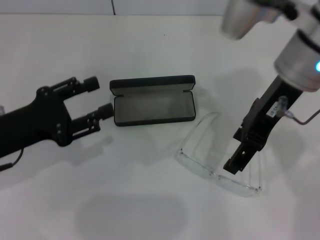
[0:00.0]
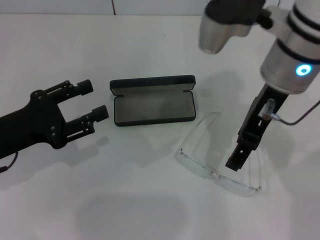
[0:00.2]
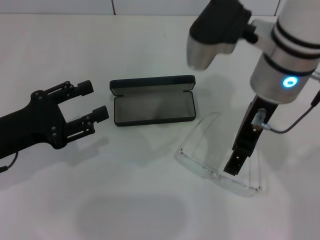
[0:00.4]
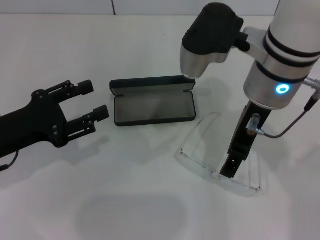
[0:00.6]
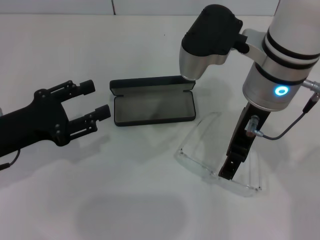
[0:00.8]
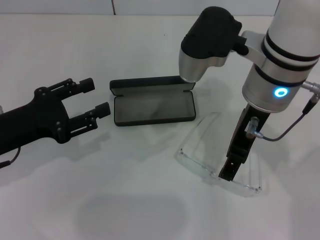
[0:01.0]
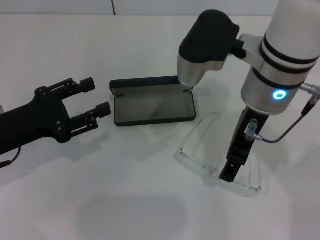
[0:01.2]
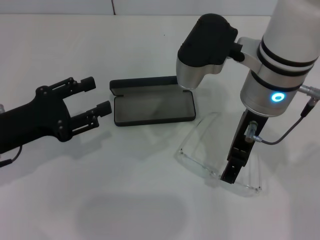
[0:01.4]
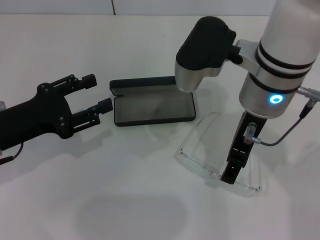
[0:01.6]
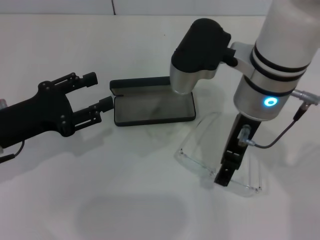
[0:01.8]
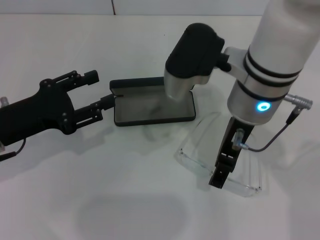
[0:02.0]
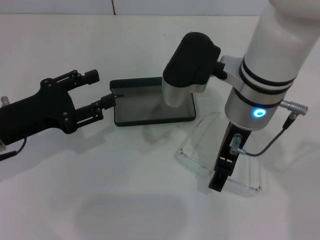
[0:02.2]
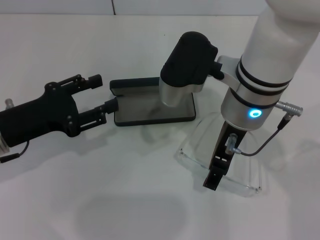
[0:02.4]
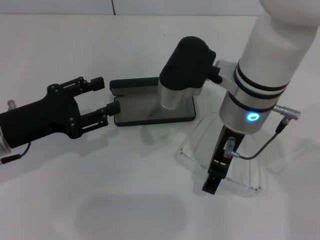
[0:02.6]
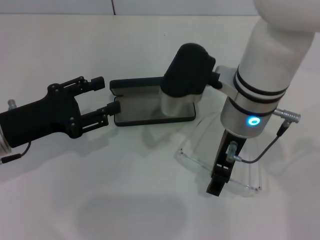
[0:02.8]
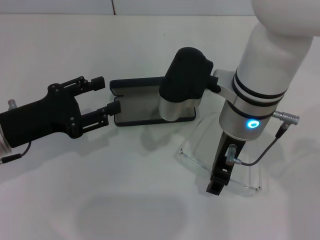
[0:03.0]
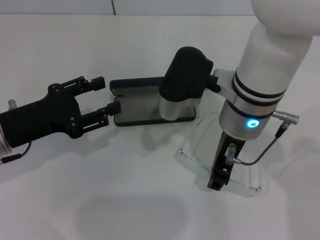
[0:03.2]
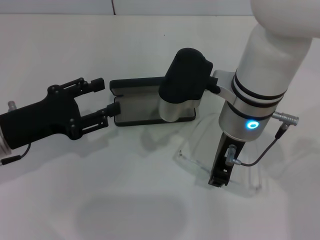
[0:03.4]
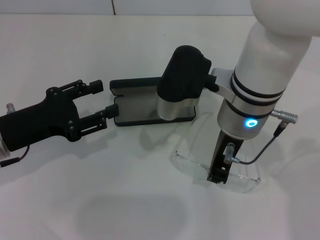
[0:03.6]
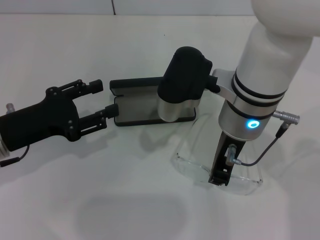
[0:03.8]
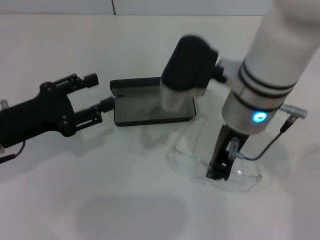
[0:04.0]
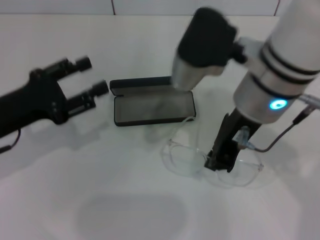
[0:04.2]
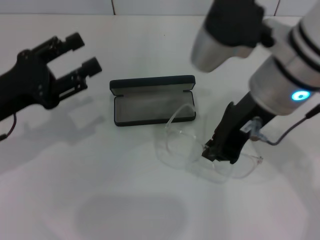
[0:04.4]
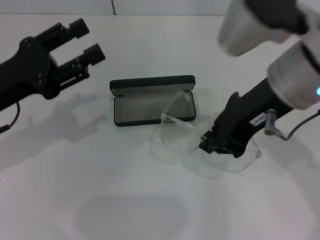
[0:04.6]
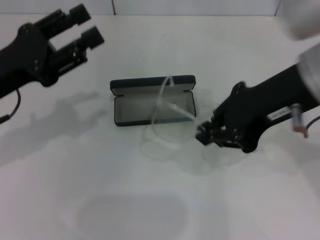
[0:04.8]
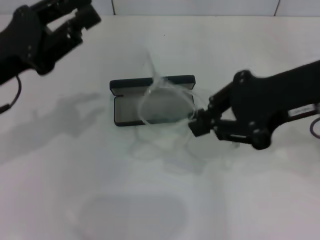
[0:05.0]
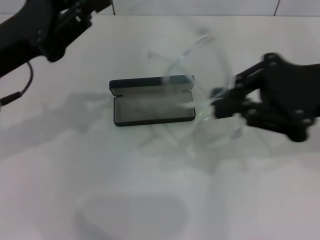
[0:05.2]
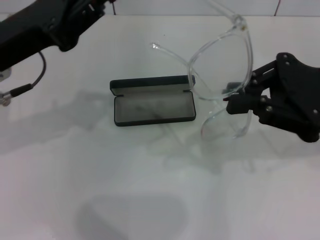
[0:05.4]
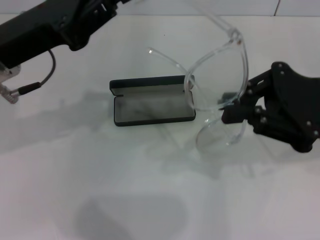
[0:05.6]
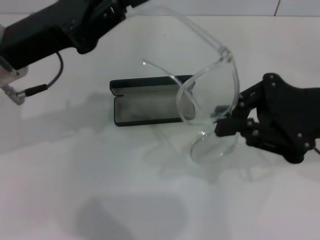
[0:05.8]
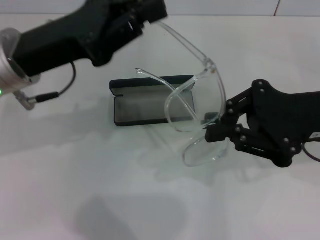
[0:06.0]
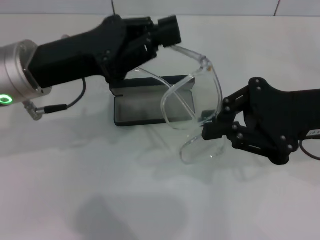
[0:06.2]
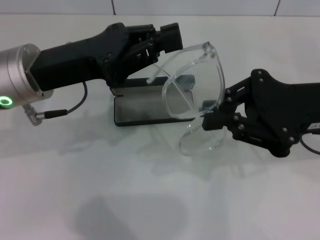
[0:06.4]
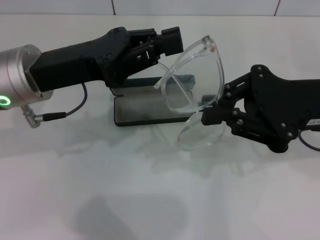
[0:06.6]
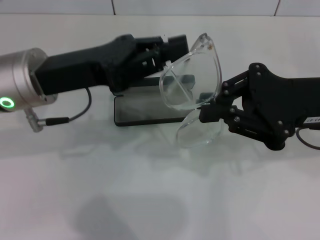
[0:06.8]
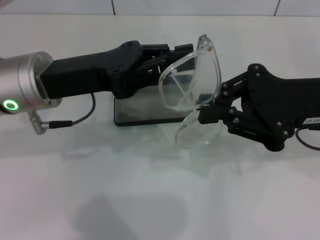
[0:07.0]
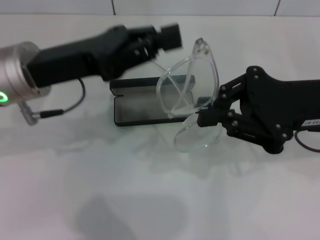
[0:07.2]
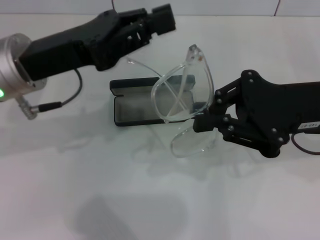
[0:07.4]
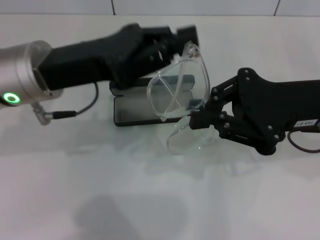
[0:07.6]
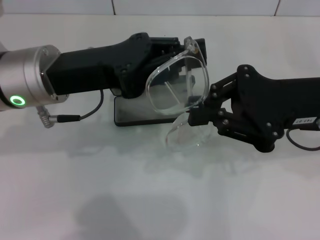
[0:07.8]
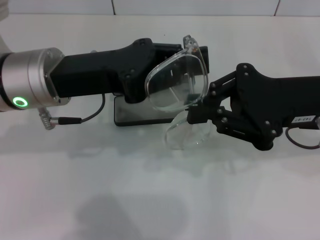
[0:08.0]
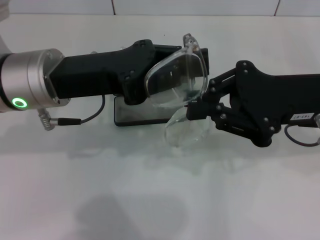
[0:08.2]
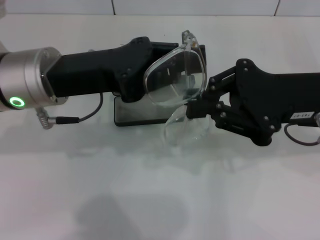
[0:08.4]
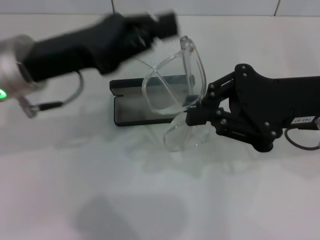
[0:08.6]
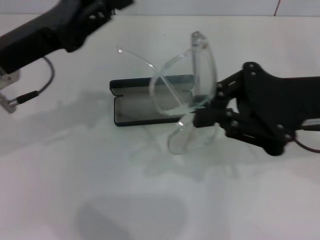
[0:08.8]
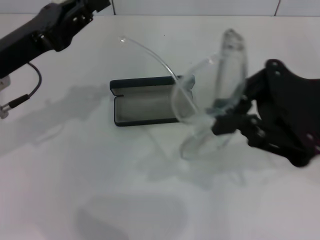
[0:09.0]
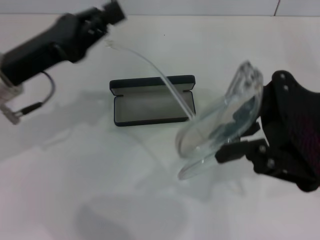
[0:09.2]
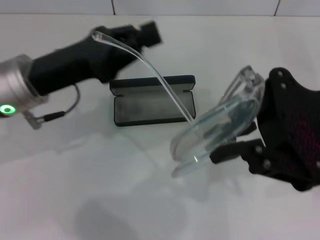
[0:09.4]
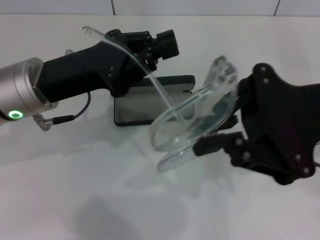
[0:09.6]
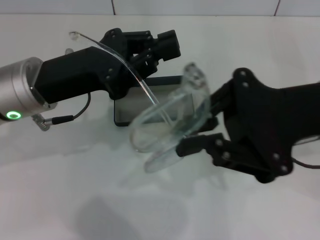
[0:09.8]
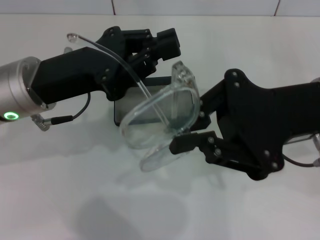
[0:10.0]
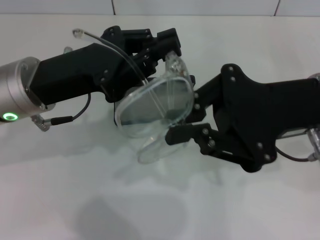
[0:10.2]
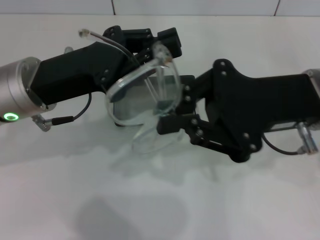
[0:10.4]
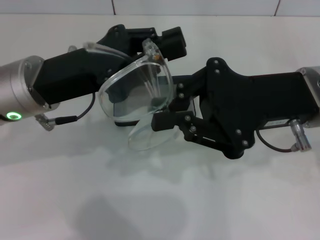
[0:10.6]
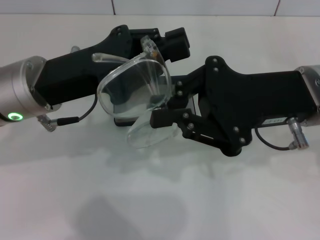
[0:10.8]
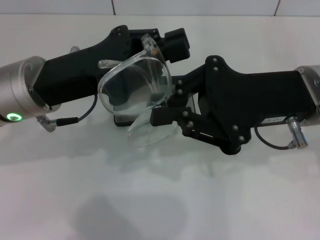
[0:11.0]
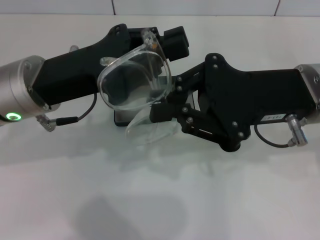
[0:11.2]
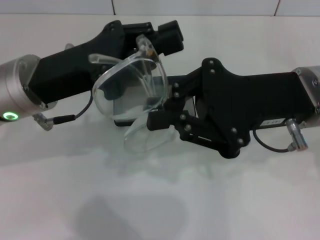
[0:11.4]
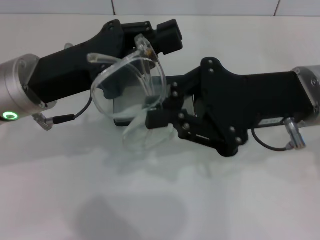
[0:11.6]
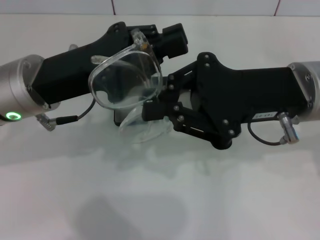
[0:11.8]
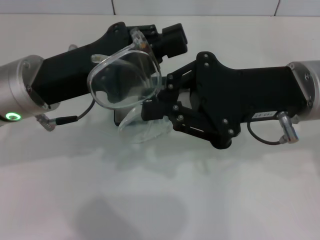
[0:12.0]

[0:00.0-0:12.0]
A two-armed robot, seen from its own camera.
Step, 0:00.0 to 0:03.2: Grab the eyeglass frame with your right hand.
Step, 0:03.6 to 0:11.0: Fold the frame with your left hand.
0:00.0 to 0:01.6: The right gripper ends up roughly 5 cm from where it was.
0:01.6 to 0:03.0: The grippers move only a little.
0:03.0 to 0:04.4: The right gripper heads upward, covering roughly 5 cm, and closes its fingers.
0:04.4 to 0:06.0: The left gripper moves to the right and upward, about 10 cm, and closes up. The right gripper is displaced to the right and downward by some 15 cm.
0:07.6 to 0:09.0: The left gripper heads to the left, covering approximately 5 cm.
0:09.0 to 0:10.4: The left gripper shifts approximately 5 cm to the right.
0:10.4 to 0:12.0: Neither gripper changes place.

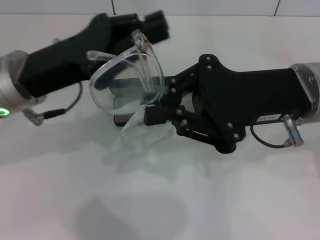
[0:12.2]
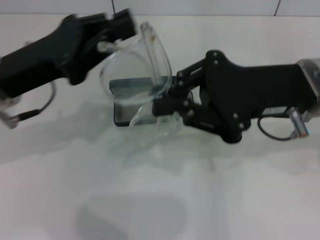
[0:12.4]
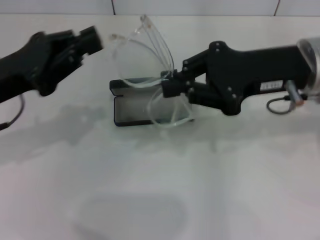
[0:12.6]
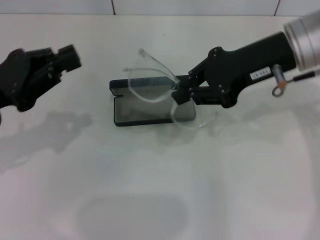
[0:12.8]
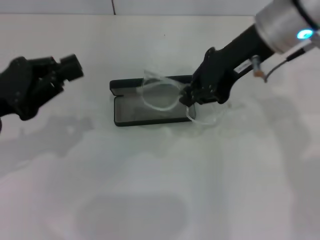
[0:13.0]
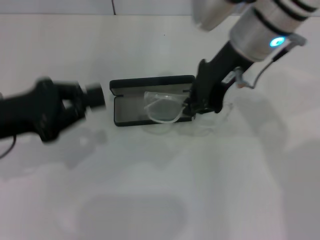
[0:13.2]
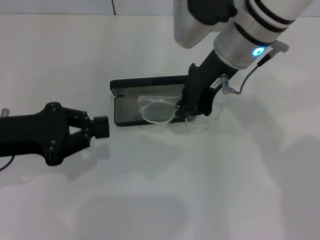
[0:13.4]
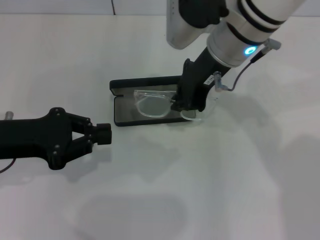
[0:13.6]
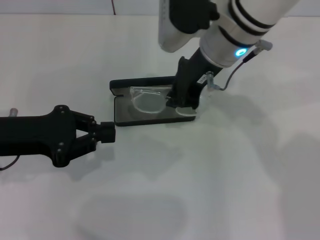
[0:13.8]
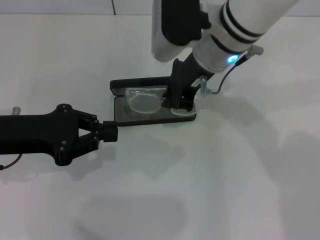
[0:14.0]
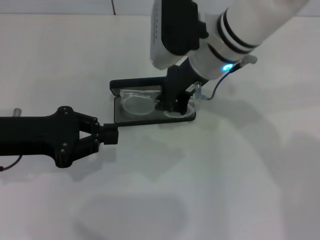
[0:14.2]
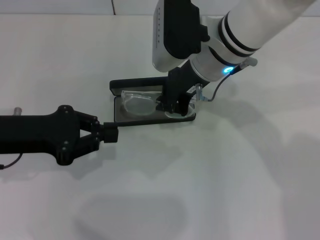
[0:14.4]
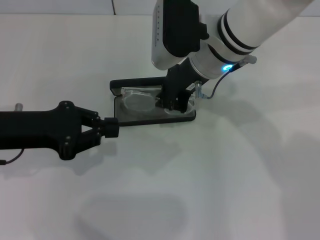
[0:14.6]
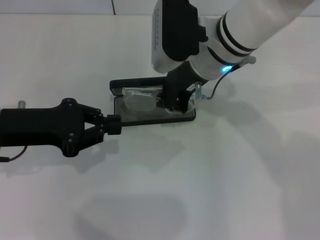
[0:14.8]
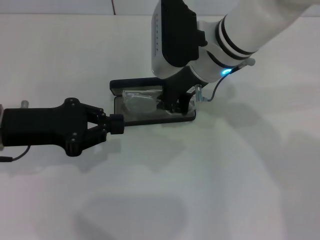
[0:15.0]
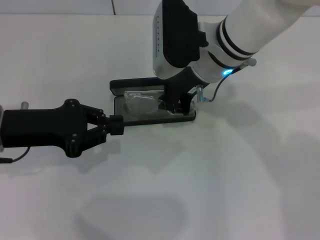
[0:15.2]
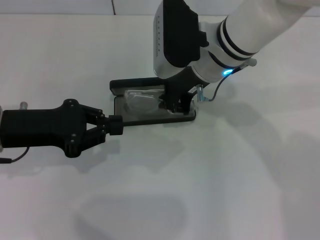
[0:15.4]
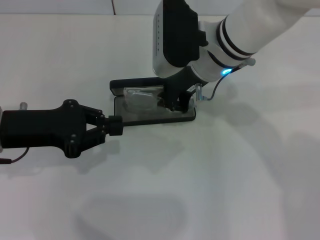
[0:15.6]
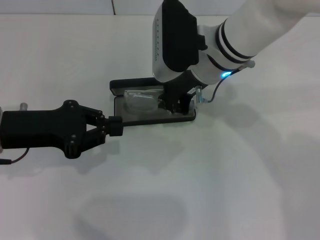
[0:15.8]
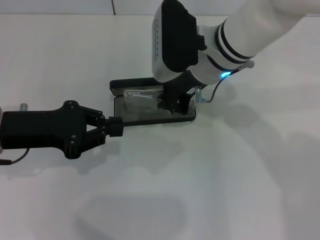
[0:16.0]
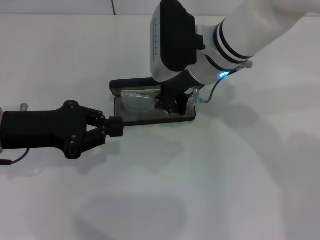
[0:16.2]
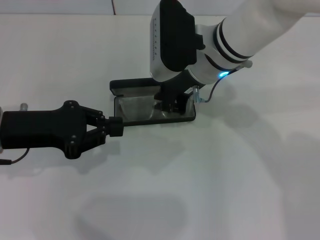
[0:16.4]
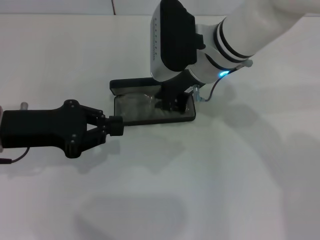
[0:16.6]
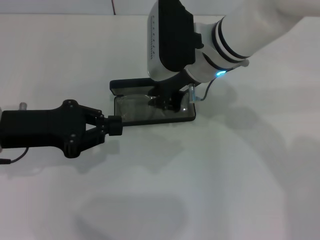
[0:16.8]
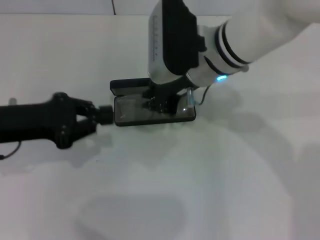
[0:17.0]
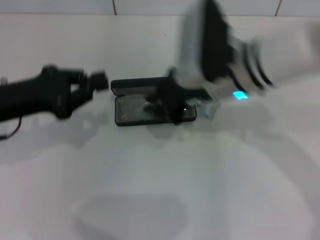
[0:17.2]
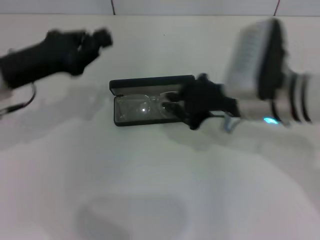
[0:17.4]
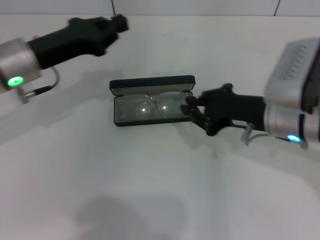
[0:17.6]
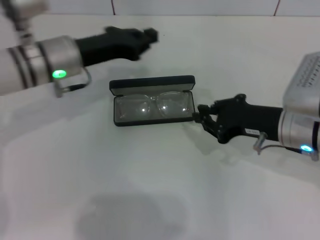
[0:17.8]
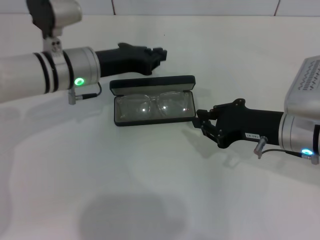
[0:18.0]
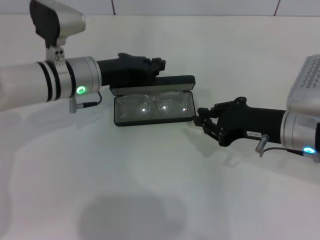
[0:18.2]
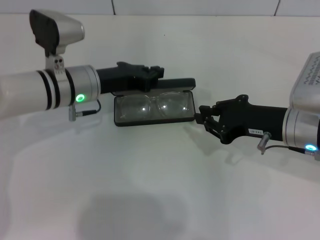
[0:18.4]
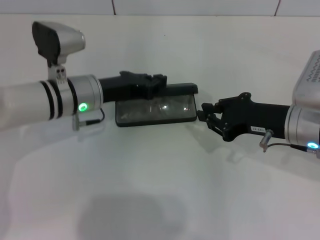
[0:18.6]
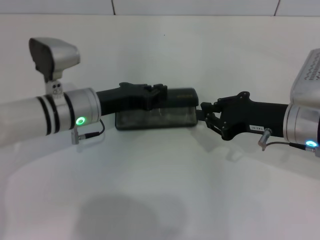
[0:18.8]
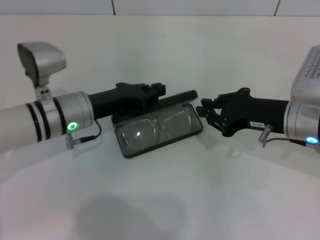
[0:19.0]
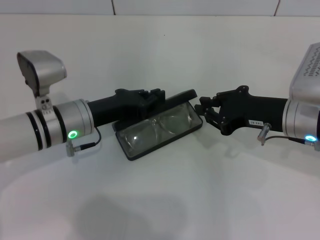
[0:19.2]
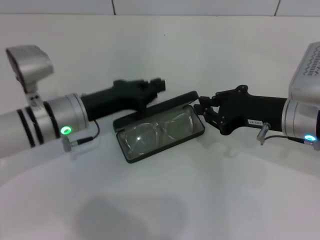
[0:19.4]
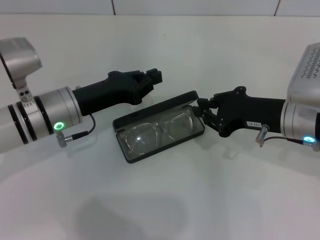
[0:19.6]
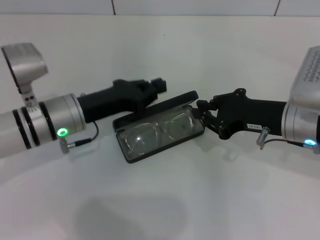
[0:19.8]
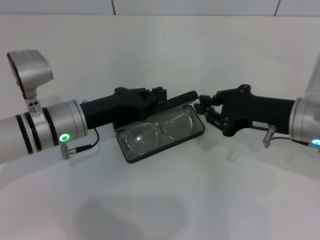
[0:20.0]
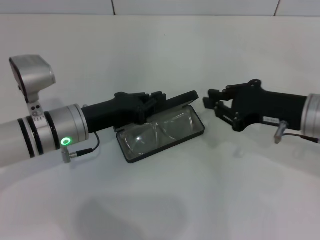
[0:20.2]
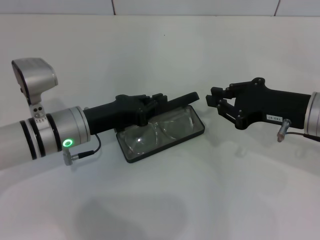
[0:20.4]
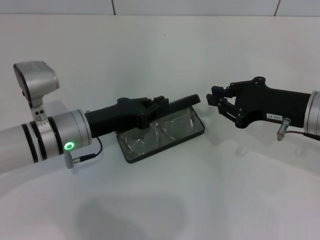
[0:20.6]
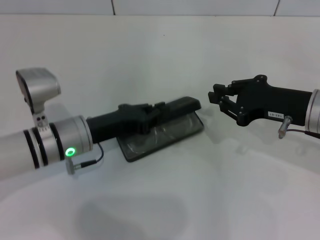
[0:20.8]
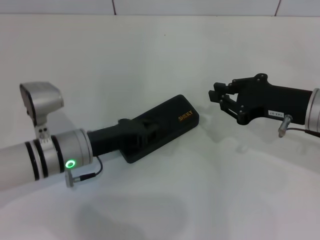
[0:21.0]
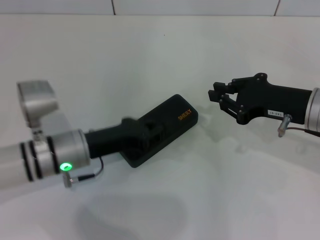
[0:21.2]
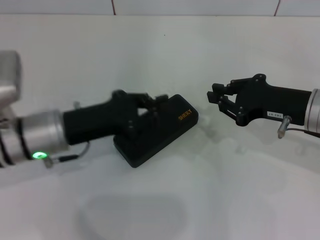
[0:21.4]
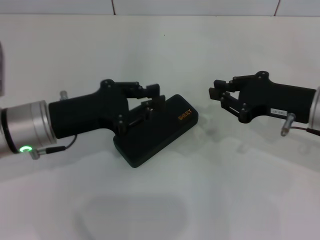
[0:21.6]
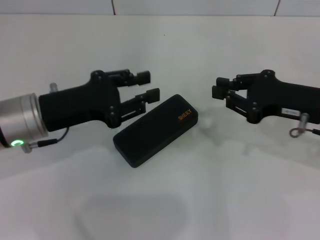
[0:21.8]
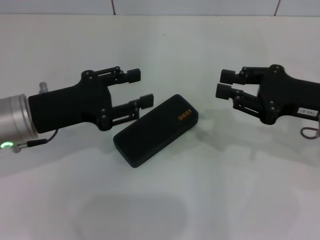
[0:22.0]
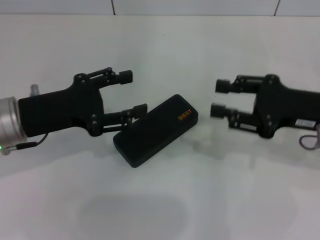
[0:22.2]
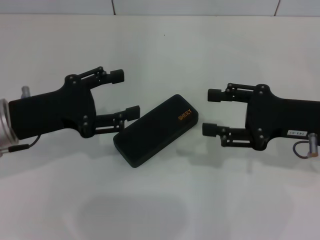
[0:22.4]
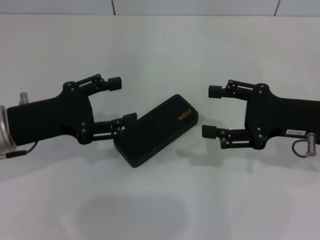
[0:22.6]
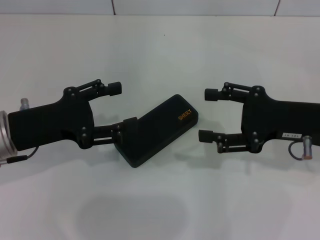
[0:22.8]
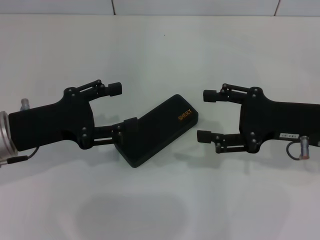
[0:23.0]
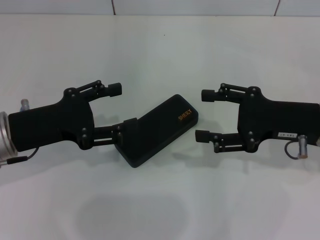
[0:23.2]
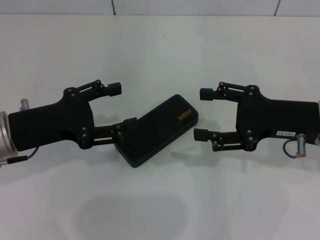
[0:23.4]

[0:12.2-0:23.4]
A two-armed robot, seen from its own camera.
Step, 0:12.2 to 0:16.6: Put the glasses into the case with your right hand.
Step, 0:16.8 to 0:20.8: Close the glasses case with your left hand.
0:12.2 to 0:13.8: The right gripper is displaced to the left and forward by some 15 cm. The left gripper goes some 5 cm to the left.
0:13.8 to 0:17.0: The grippers stay close to where they were, moving slightly.
0:17.0 to 0:18.6: The left gripper travels to the right, forward and downward by approximately 15 cm. Meanwhile the right gripper travels to the right, backward and downward by about 20 cm.
0:18.6 to 0:20.2: The left gripper goes about 5 cm backward.
0:20.2 to 0:21.8: The left gripper moves upward, some 5 cm.
0:21.8 to 0:23.4: The right gripper opens up; the left gripper opens.
